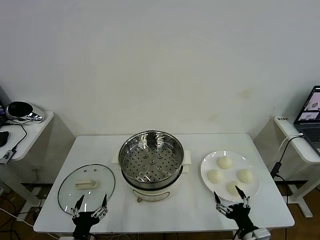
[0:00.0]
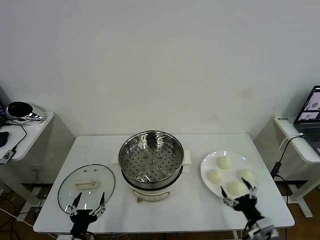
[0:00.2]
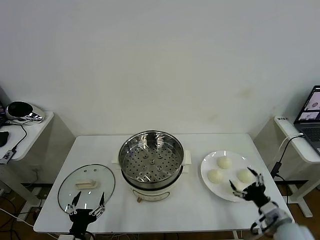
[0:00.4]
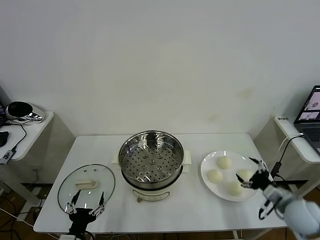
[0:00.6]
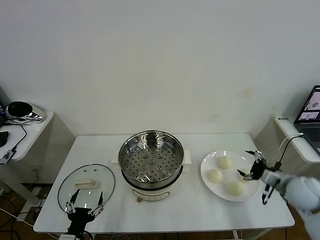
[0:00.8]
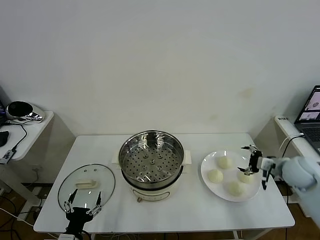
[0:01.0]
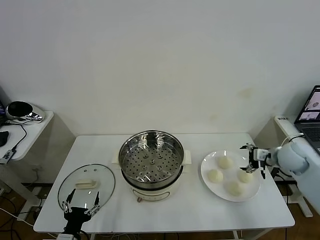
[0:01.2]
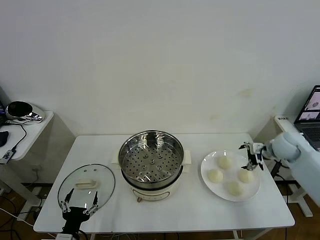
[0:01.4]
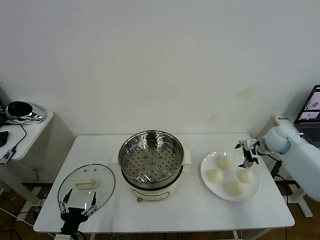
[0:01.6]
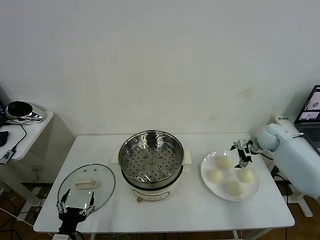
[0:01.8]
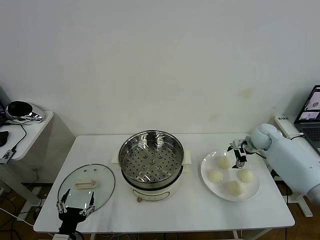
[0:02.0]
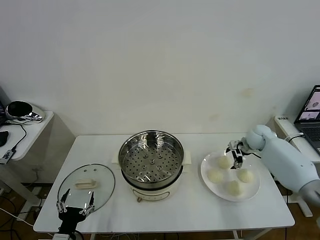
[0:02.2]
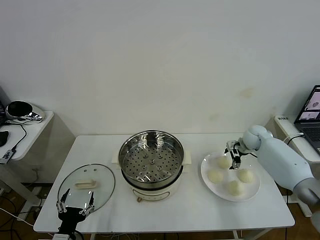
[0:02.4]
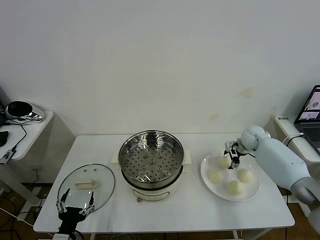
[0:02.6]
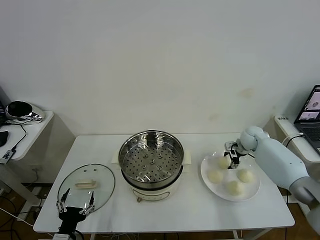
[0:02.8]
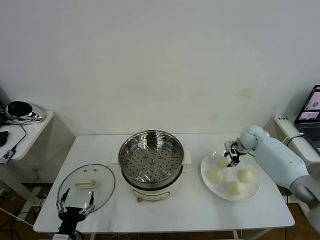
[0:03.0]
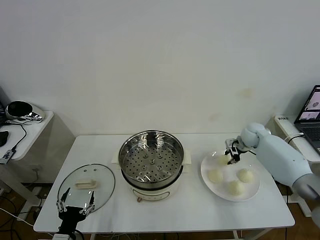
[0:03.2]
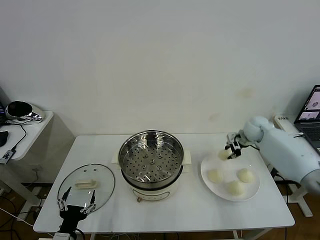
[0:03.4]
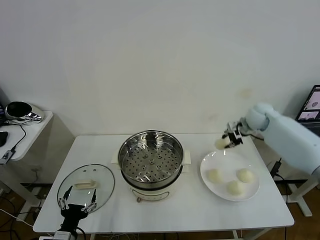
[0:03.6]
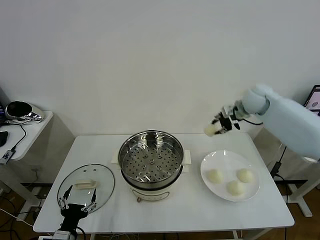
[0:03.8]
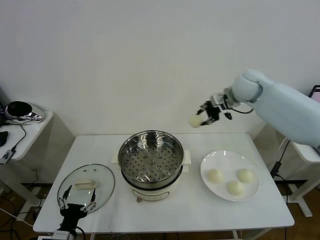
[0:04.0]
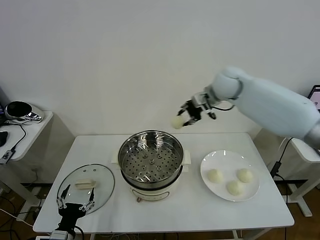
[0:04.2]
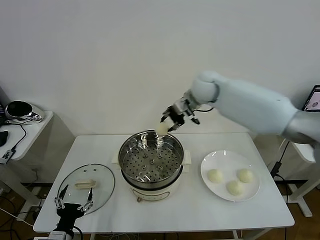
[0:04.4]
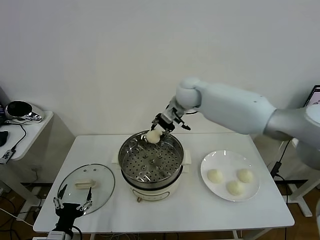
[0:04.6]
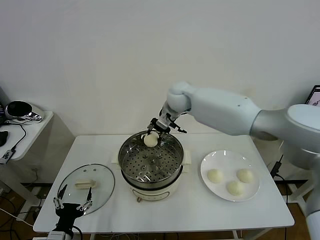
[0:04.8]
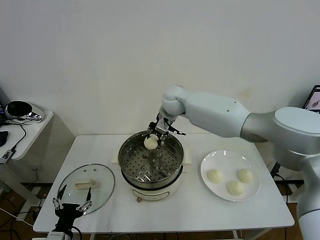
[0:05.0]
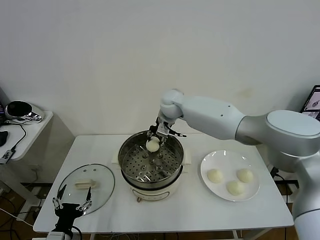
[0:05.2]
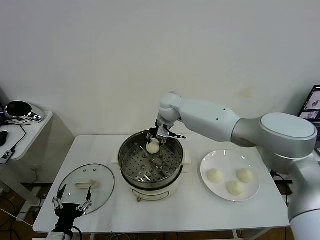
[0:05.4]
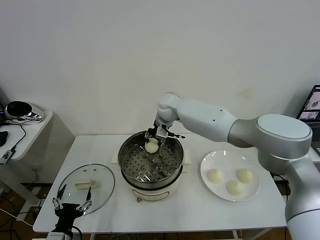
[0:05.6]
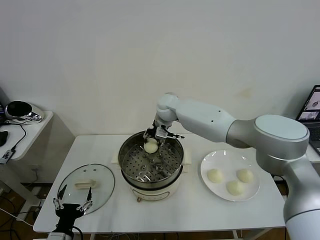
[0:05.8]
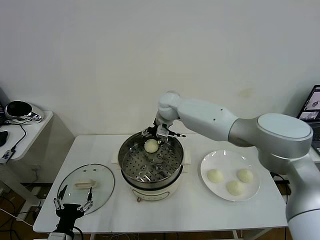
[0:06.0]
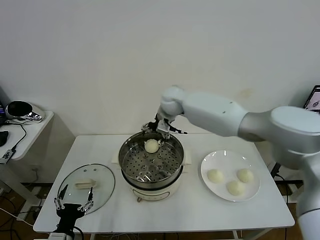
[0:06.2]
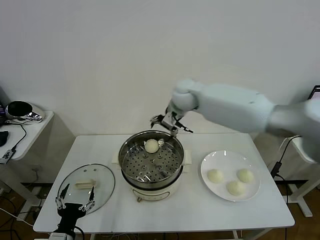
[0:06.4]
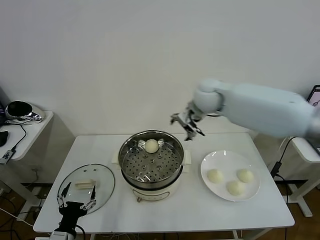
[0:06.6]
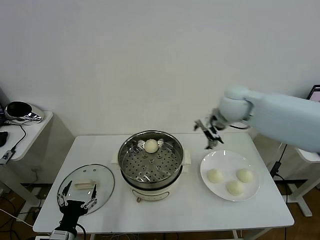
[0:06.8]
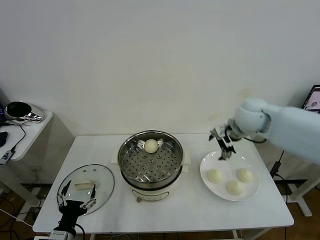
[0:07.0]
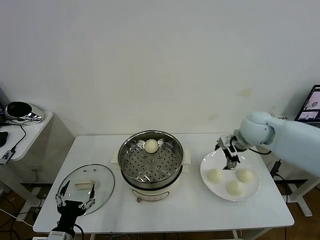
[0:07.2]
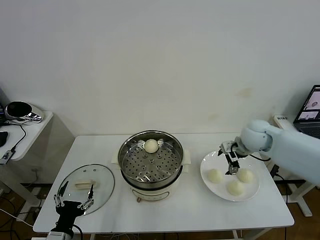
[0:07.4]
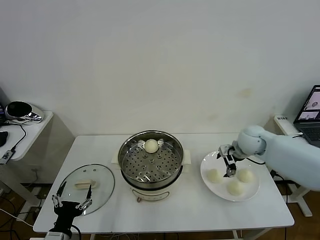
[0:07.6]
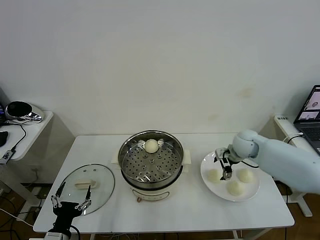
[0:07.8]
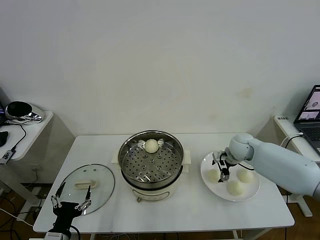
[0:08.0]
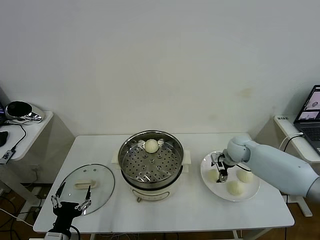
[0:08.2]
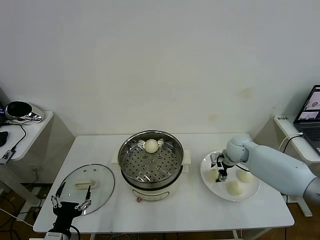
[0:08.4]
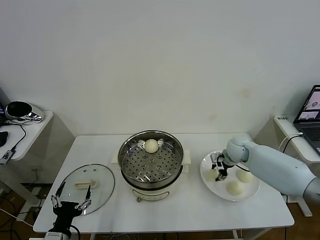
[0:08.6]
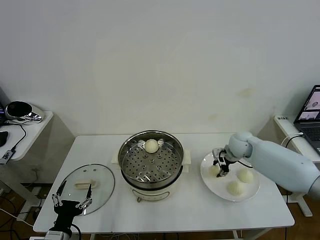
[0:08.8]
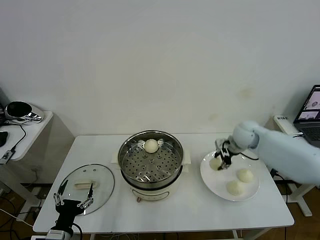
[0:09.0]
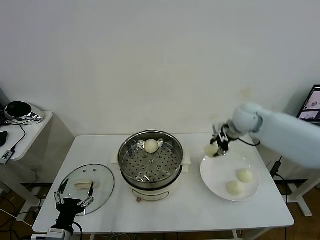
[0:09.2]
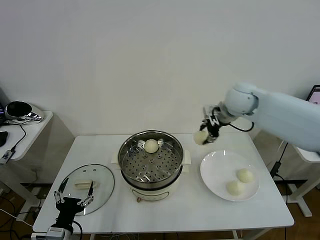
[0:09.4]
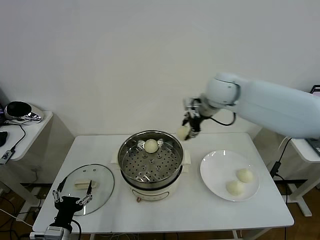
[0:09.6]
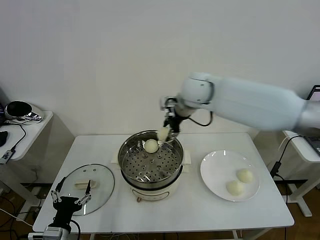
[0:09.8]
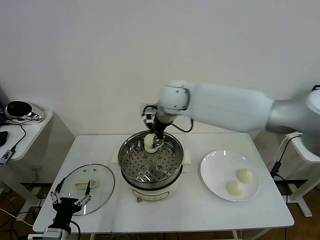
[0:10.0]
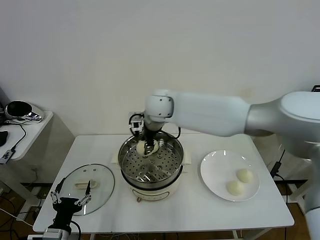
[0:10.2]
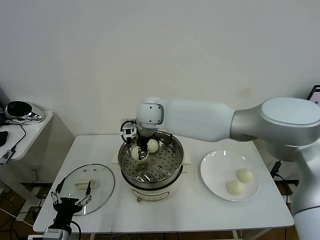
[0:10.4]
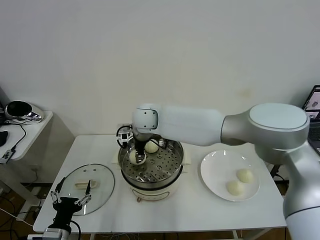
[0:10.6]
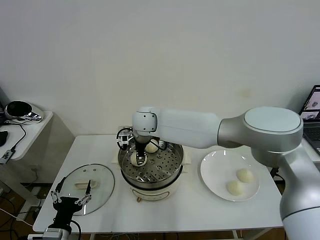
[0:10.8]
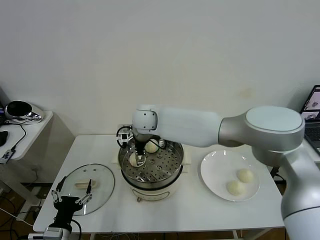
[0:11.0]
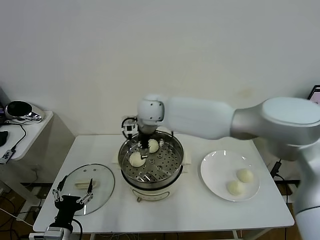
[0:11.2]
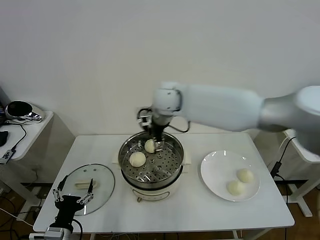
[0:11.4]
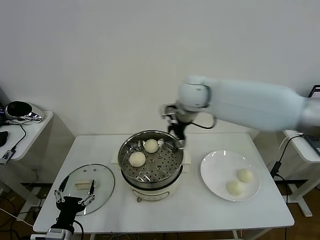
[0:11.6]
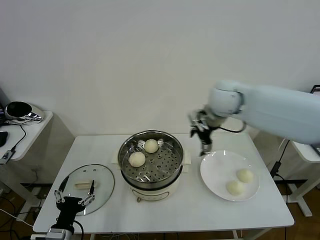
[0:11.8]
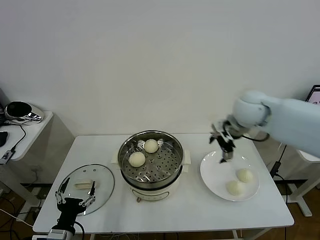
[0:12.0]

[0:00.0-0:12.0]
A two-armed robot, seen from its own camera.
Task of the whole recording: take steamed baozi put them in steamer then cover it.
Step, 0.0 to 2.8 s: Grasp the baozi in the plate with right gripper.
Step, 3.0 to 6.0 s: Place the baozi on the steamer with right gripper.
Step, 6.2 to 8.6 s: Grasp the baozi in the plate with right gripper.
Step, 8.8 to 11.0 s: Place the baozi on the steamer with right gripper.
1.6 to 3.0 s: The right gripper shifts by about 5 cm, and closes.
3.0 to 4.4 s: The right gripper shifts about 35 cm to the left and upward.
4.4 to 6.0 s: The right gripper heads to the left and downward, covering about 10 cm, and opens up.
6.0 to 7.6 s: The right gripper moves to the right, some 25 cm.
7.6 to 9.0 s: The right gripper heads upward, covering some 5 cm, and closes its fingers.
9.0 to 10.4 s: The right gripper shifts some 35 cm to the left.
10.4 to 12.0 s: The right gripper moves to the right, roughly 35 cm, and opens up.

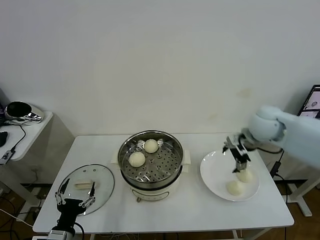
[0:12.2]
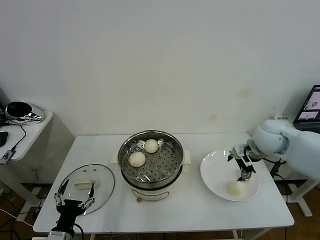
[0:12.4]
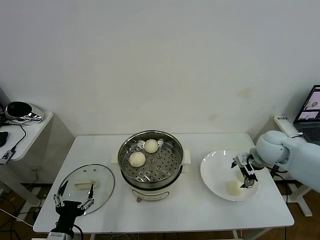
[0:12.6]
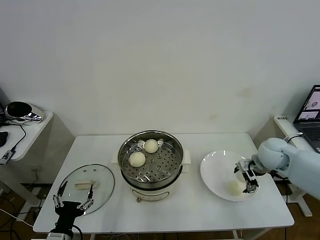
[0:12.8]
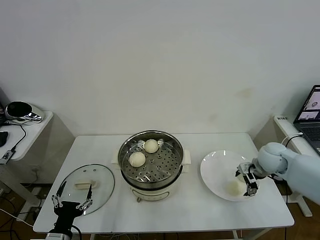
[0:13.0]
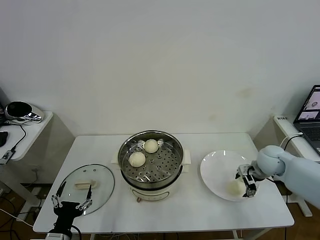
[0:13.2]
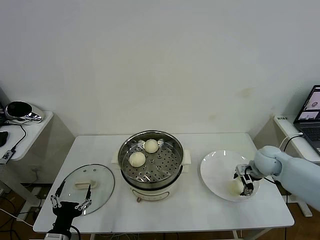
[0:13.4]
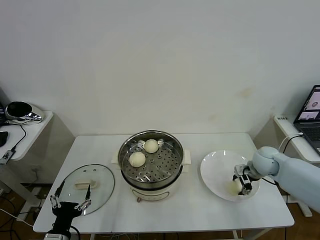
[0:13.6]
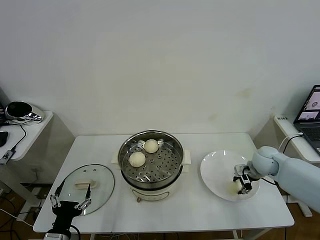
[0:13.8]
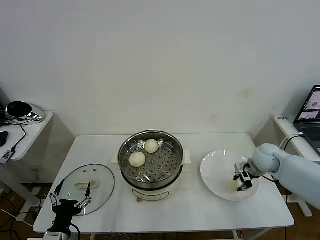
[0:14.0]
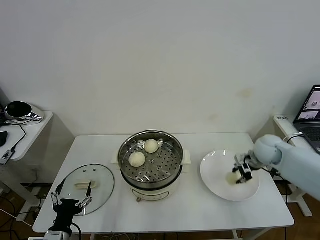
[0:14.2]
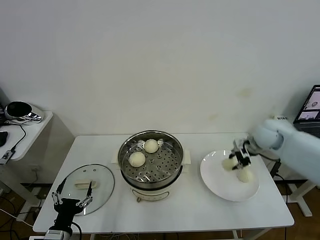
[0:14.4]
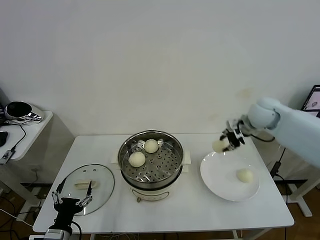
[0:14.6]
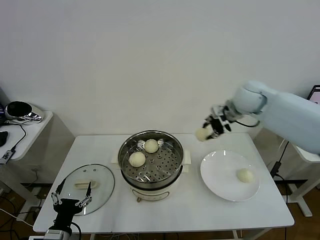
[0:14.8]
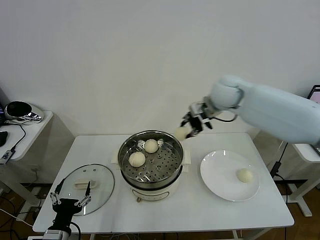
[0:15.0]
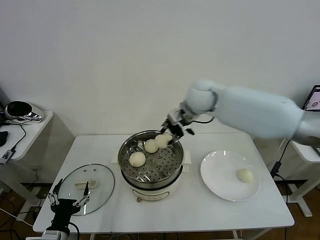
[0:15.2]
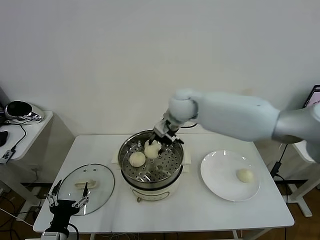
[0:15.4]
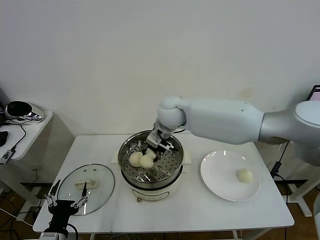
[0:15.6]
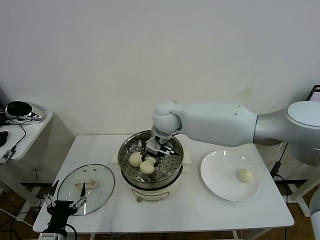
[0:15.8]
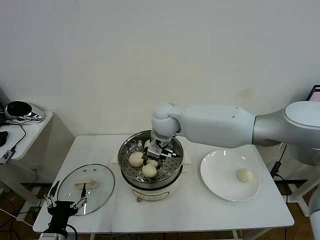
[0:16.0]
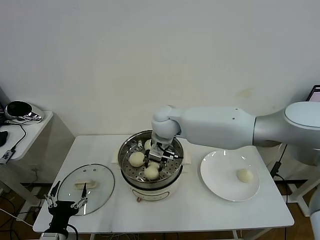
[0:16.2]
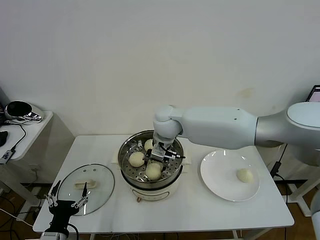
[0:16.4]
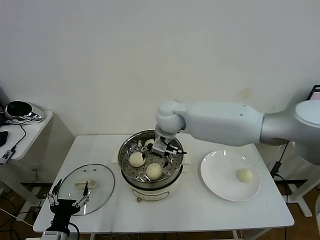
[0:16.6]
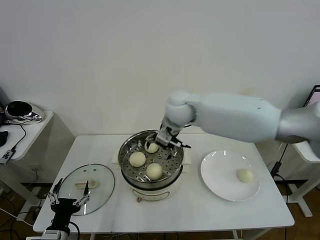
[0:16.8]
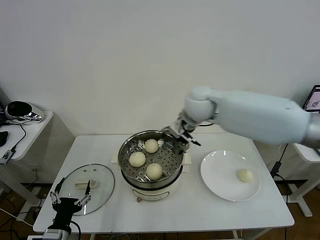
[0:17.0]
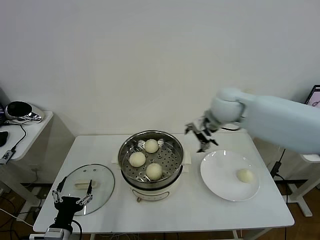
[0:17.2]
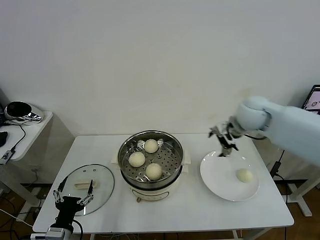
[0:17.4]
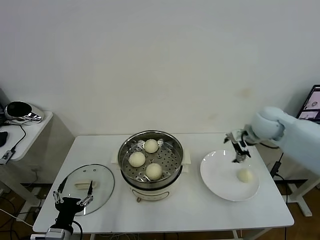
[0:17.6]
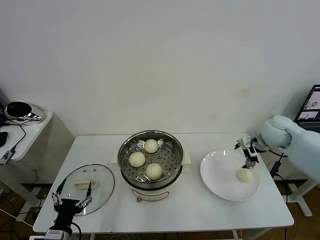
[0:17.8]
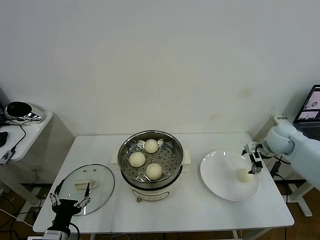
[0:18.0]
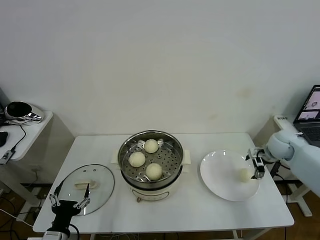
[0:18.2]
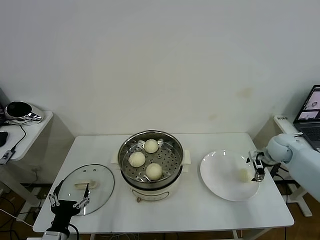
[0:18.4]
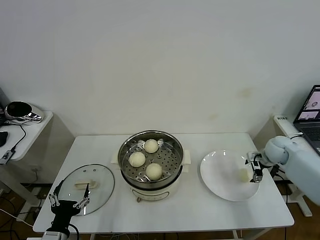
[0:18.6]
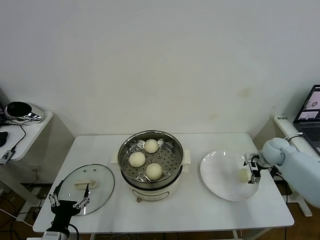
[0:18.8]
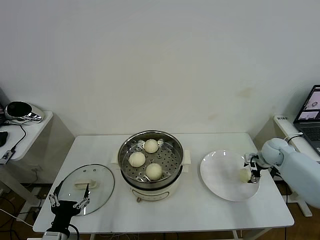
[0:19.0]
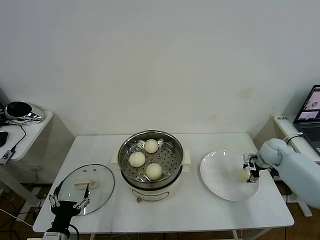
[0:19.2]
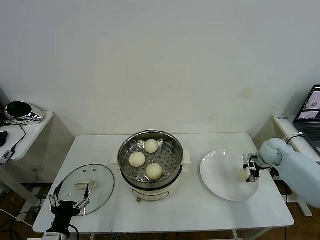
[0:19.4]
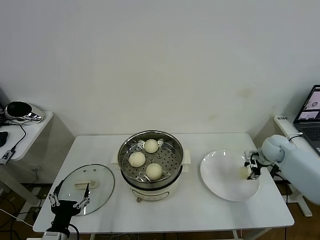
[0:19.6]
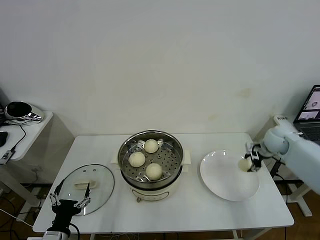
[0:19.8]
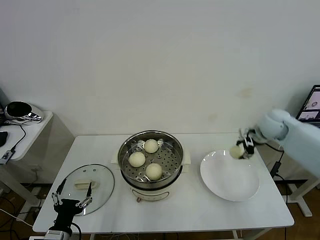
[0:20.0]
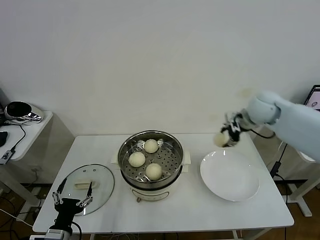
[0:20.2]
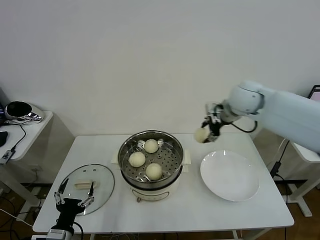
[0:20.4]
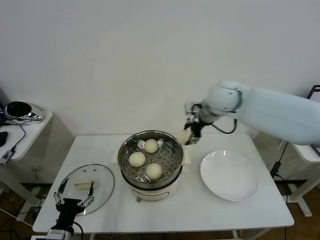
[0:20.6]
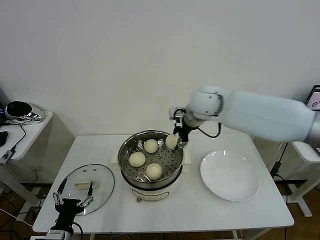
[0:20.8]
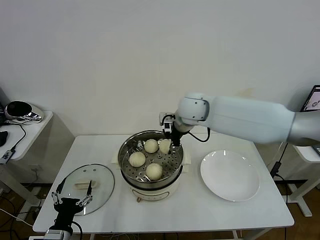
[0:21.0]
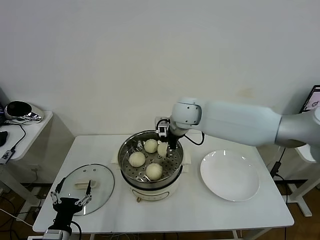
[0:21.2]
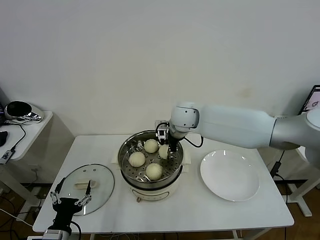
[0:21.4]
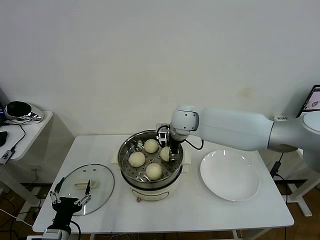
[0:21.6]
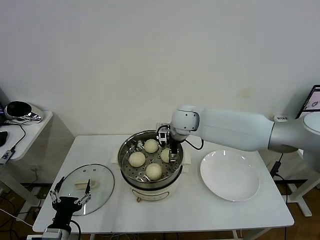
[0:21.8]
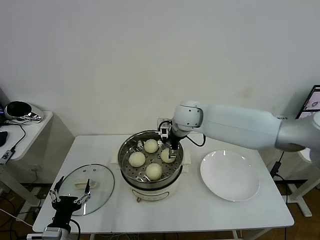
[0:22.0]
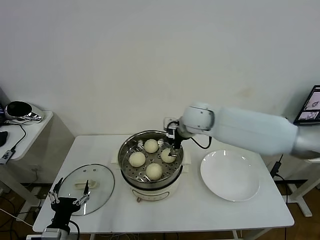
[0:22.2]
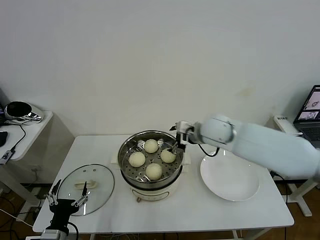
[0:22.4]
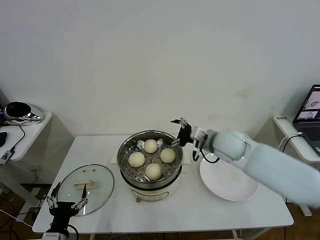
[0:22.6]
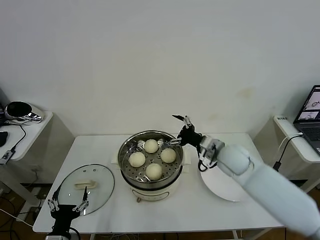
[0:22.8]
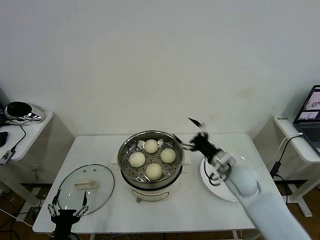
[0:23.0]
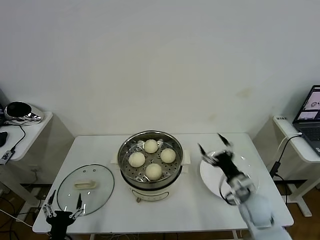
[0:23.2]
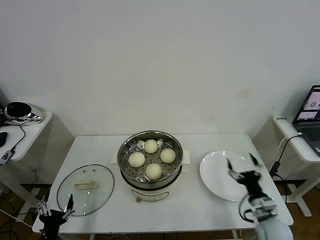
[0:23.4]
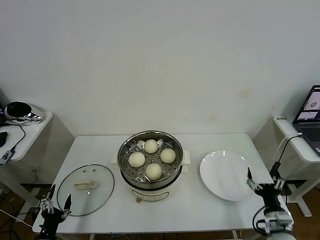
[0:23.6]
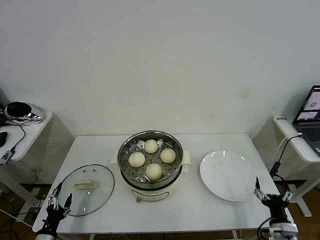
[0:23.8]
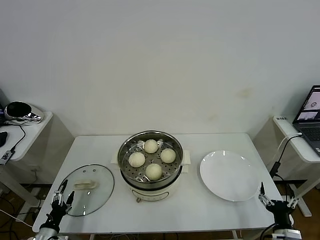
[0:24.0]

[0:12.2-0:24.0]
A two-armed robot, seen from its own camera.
Task of the whole recording: take steamed baozi put them in steamer then cover it.
Step, 12.2 to 13.6 s: Grasp the baozi in the plate with right gripper.
Step, 13.8 to 16.6 s: Place the baozi on the steamer with right gripper.
Step, 16.8 to 19.4 s: Grasp the baozi in the plate with right gripper.
Step, 19.6 to 21.8 s: Place the baozi on the steamer with right gripper.
12.2 to 13.6 s: The right gripper goes about 15 cm downward, and closes.
13.6 to 15.2 s: The right gripper is displaced to the left and upward by approximately 35 cm.
15.2 to 16.6 s: The right gripper travels to the left by about 5 cm, and opens up.
16.6 to 18.2 s: The right gripper goes approximately 40 cm to the right.
18.2 to 19.6 s: The right gripper closes up.
19.6 to 21.0 s: The right gripper shifts about 40 cm to the left and upward.
21.0 to 22.6 s: The right gripper moves to the right, backward and downward, approximately 15 cm, and opens.
22.6 to 24.0 s: The right gripper heads backward, downward and to the right, covering approximately 40 cm, while the left gripper shifts roughly 15 cm to the left and downward.
